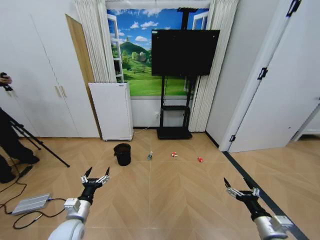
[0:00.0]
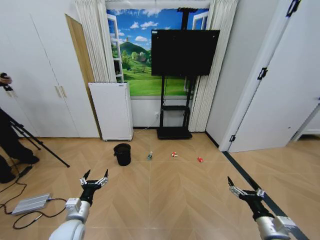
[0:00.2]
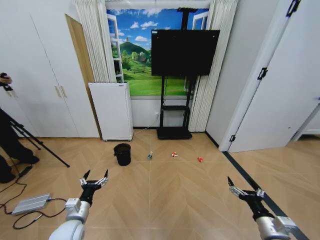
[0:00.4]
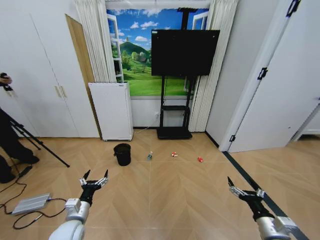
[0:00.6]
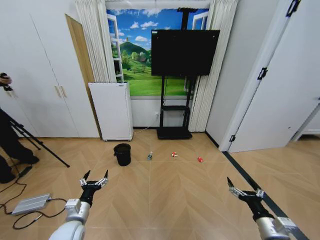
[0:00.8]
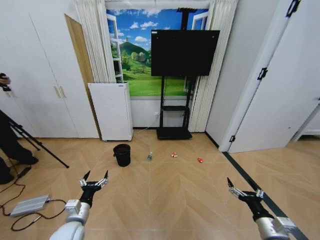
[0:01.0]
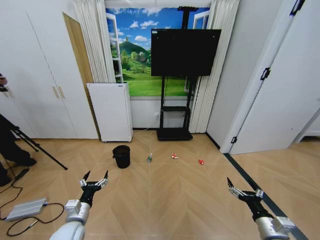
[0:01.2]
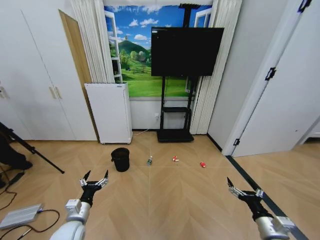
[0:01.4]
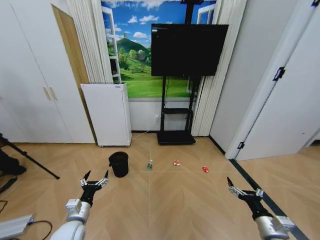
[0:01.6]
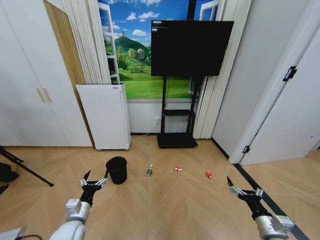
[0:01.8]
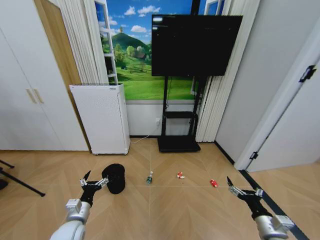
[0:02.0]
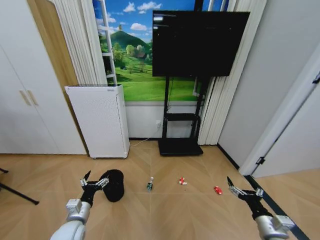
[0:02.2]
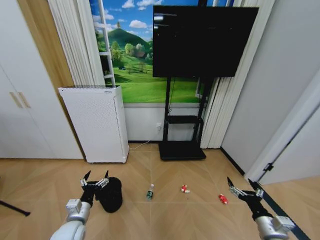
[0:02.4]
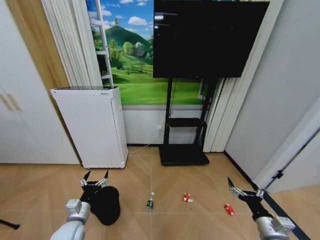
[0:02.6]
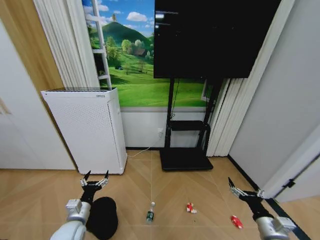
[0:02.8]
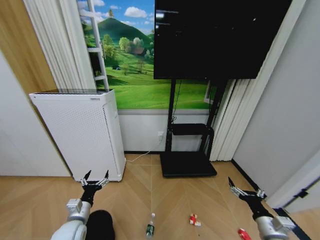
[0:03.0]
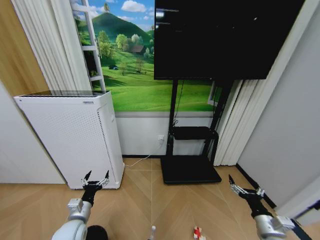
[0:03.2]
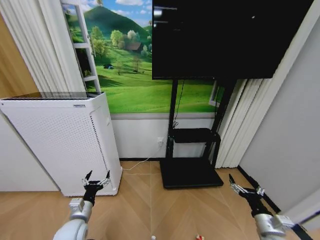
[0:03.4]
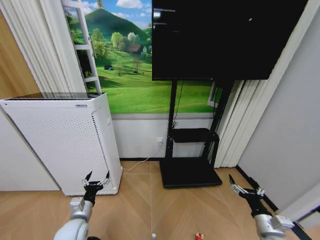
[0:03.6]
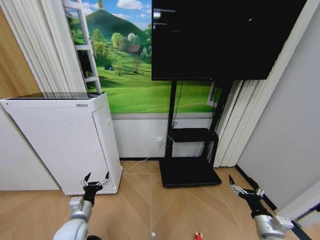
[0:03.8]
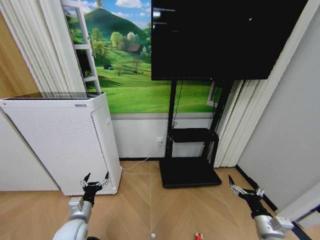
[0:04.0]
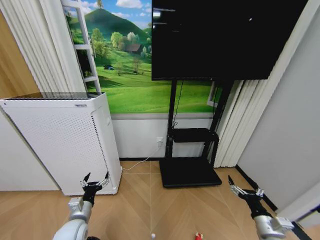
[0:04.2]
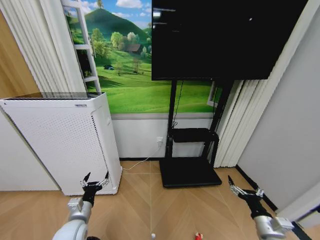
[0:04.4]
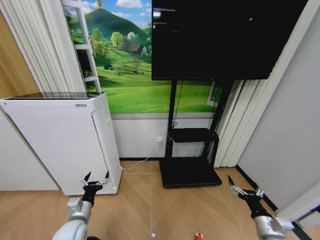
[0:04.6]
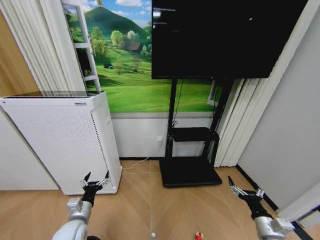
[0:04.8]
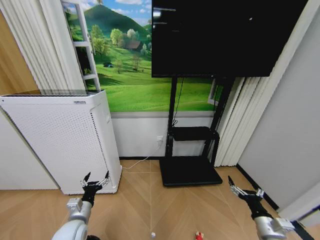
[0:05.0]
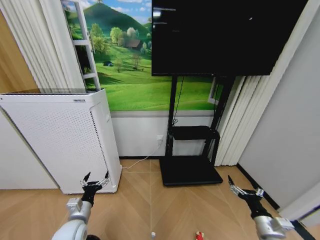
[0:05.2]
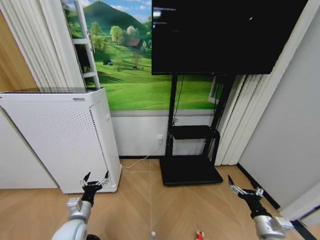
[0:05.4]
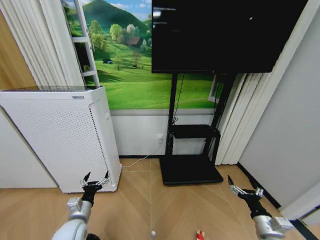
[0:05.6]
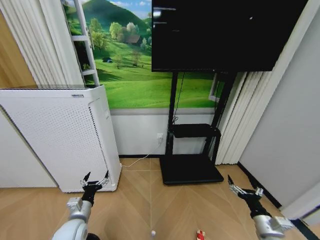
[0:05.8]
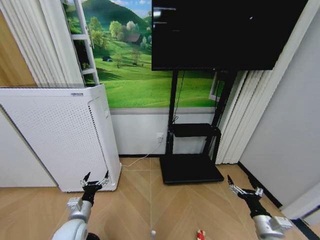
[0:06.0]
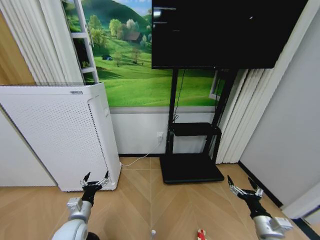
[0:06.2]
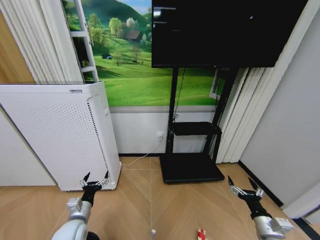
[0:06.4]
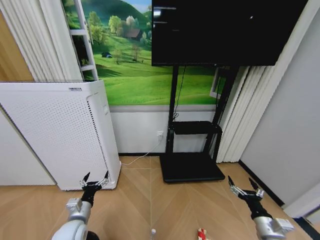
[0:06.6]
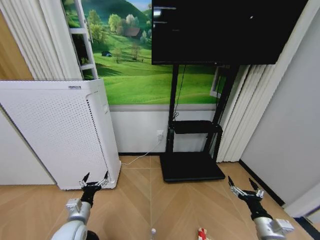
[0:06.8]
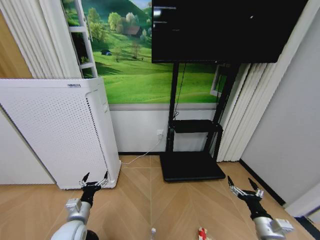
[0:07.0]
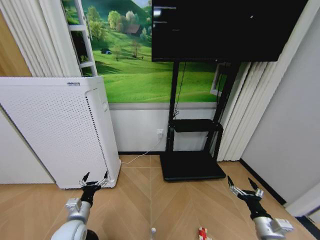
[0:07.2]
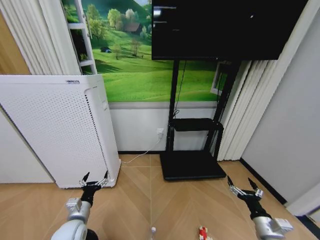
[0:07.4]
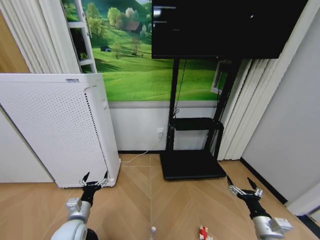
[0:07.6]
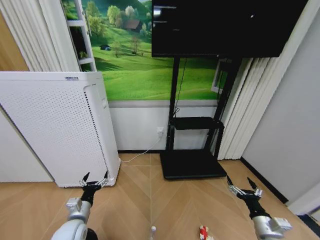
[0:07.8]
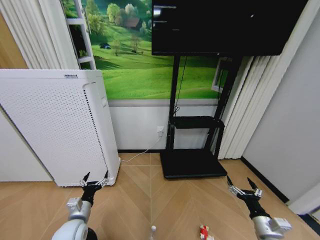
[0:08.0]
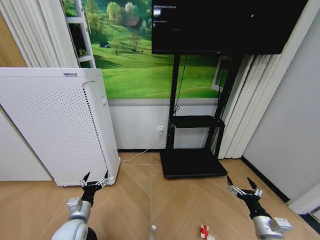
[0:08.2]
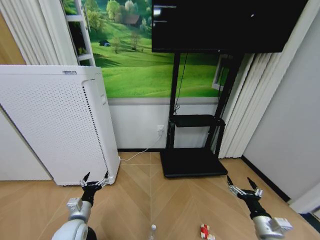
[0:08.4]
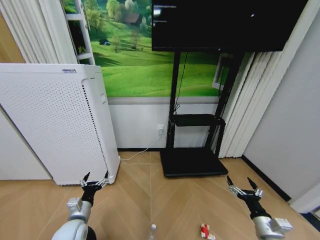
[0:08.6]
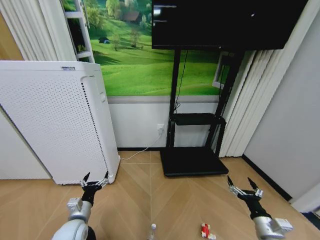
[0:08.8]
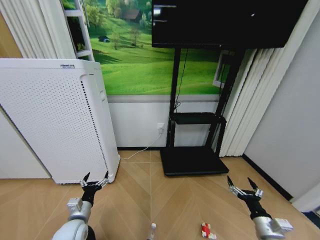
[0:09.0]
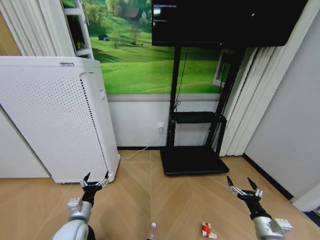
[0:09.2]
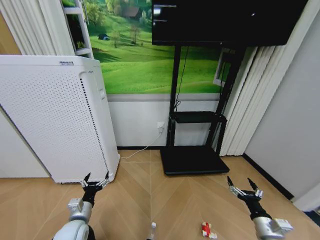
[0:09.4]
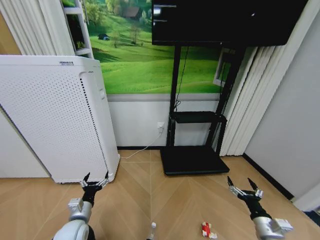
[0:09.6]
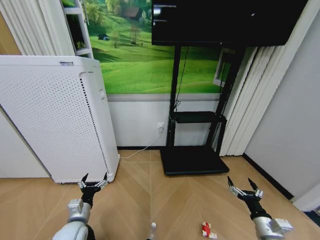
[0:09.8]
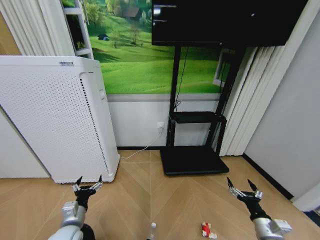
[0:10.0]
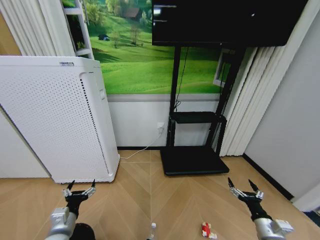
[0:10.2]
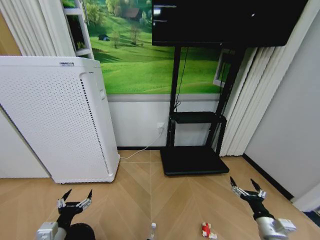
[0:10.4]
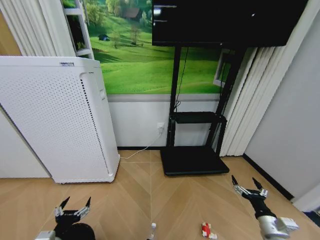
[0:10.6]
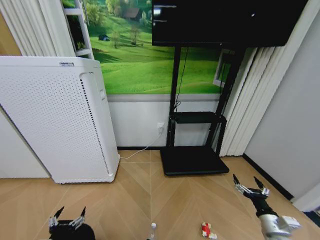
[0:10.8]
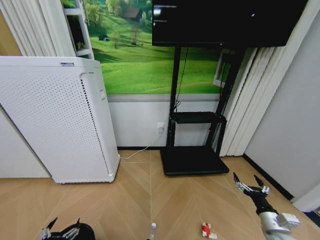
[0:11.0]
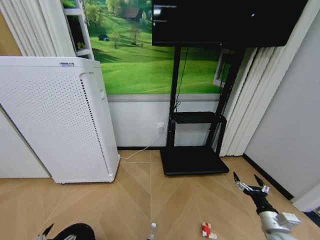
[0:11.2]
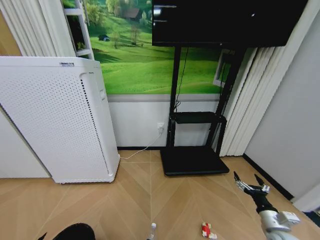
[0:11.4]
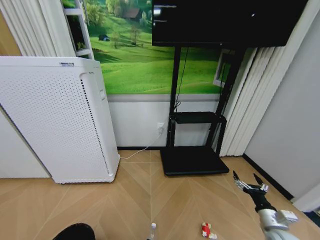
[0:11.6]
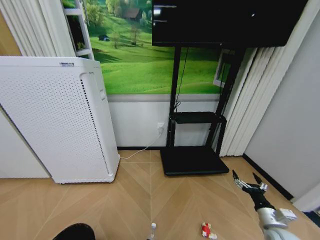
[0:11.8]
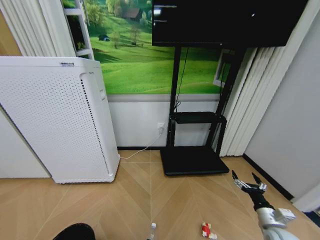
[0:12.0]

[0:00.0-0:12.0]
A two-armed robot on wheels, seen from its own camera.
Task of the whole recording: Pick up the trash bin and place the garbage on the floor into it.
0:04.4 to 0:09.0: Both grippers stay put.
0:09.0 to 0:10.4: The left gripper moves backward, roughly 10 cm.
0:10.4 to 0:12.0: The left gripper goes some 15 cm backward, to the left and downward.

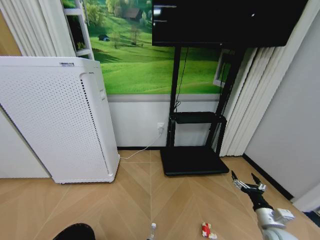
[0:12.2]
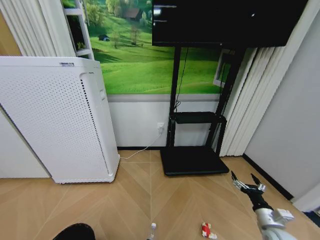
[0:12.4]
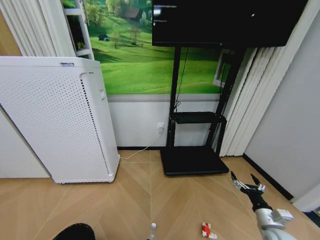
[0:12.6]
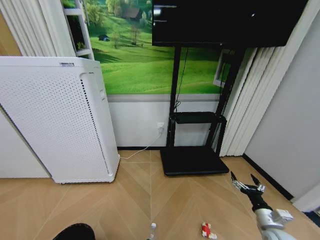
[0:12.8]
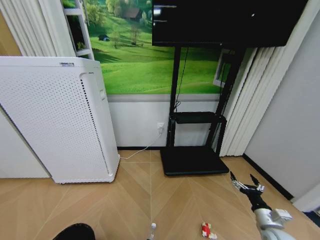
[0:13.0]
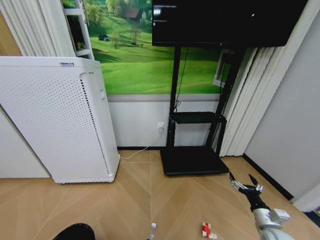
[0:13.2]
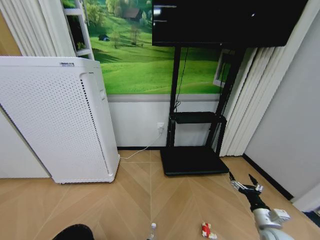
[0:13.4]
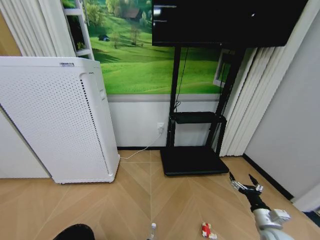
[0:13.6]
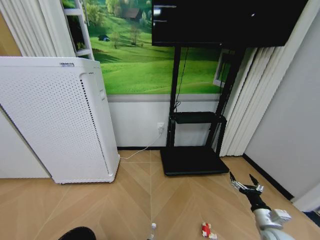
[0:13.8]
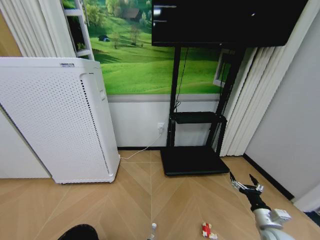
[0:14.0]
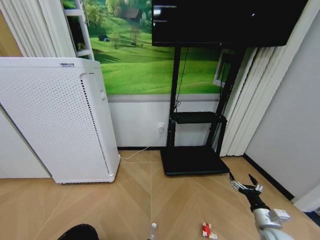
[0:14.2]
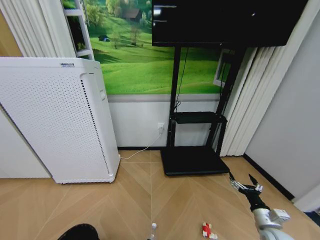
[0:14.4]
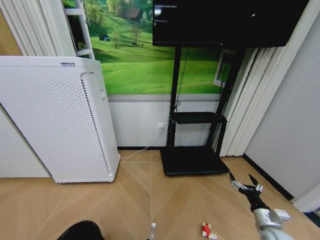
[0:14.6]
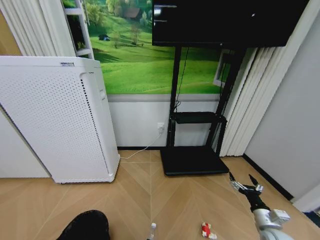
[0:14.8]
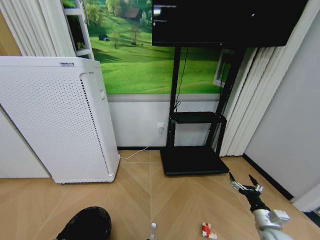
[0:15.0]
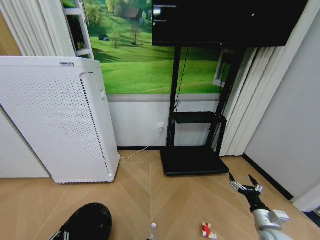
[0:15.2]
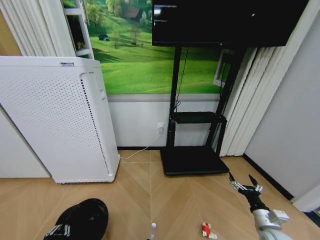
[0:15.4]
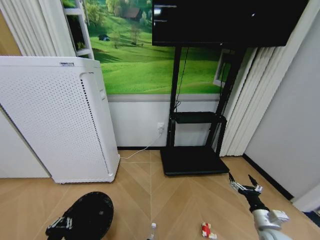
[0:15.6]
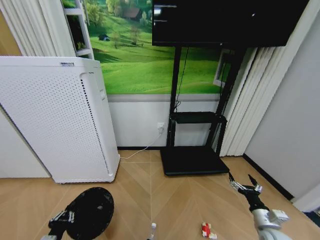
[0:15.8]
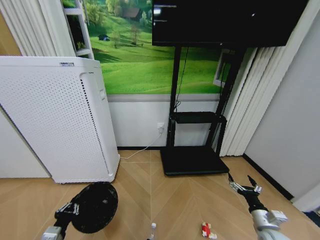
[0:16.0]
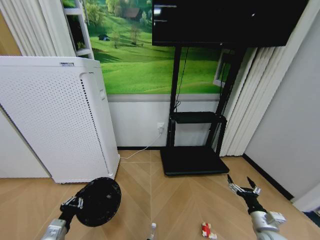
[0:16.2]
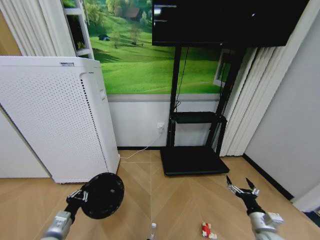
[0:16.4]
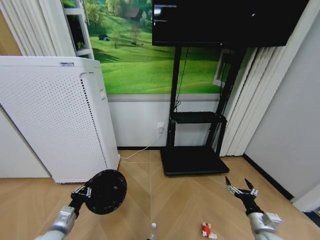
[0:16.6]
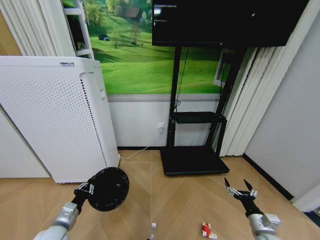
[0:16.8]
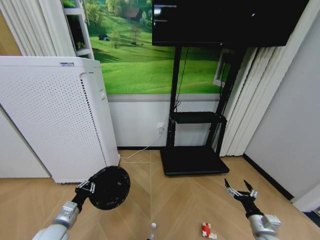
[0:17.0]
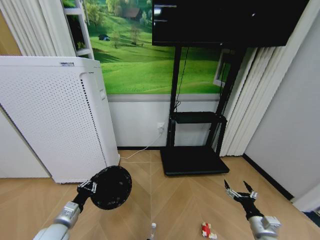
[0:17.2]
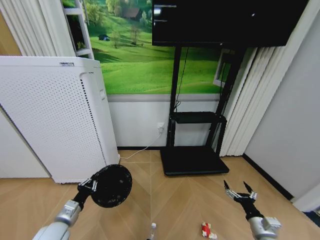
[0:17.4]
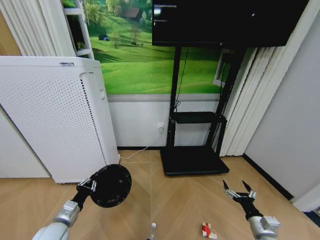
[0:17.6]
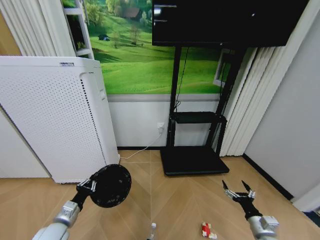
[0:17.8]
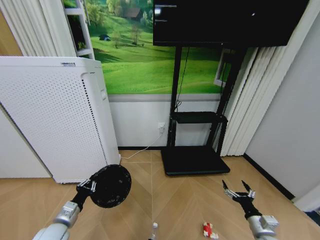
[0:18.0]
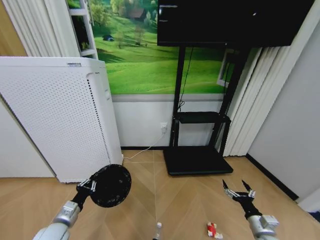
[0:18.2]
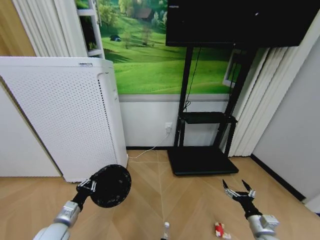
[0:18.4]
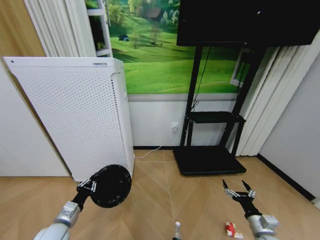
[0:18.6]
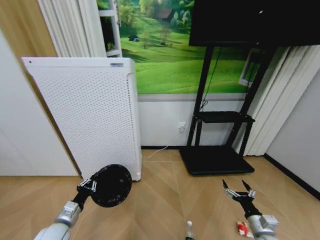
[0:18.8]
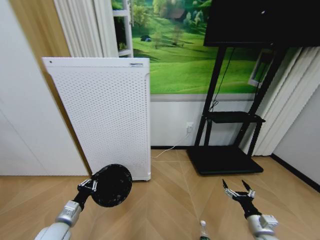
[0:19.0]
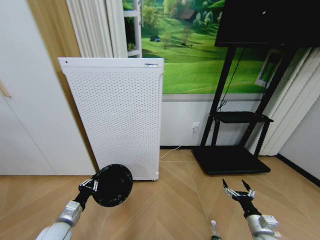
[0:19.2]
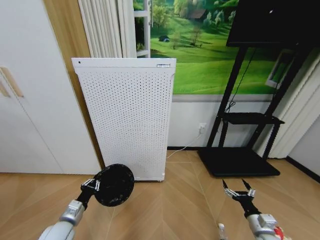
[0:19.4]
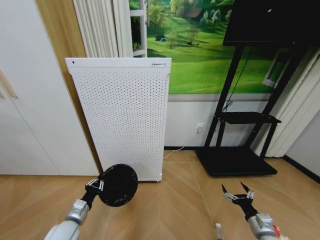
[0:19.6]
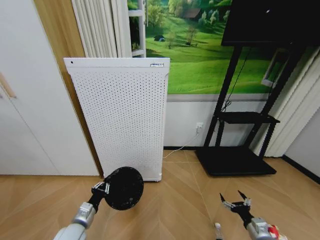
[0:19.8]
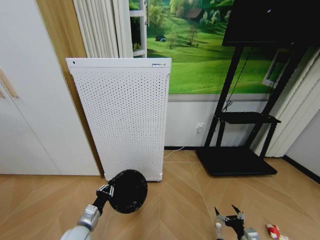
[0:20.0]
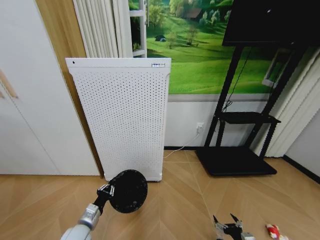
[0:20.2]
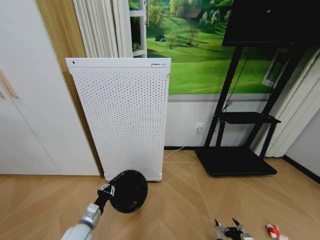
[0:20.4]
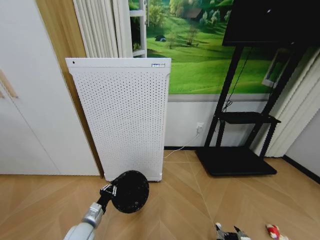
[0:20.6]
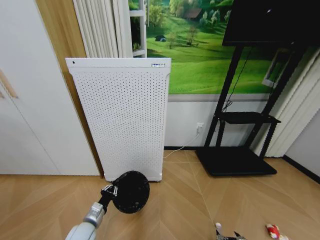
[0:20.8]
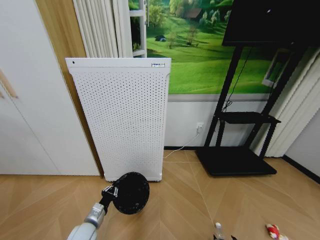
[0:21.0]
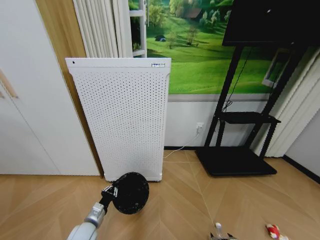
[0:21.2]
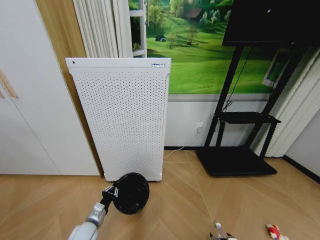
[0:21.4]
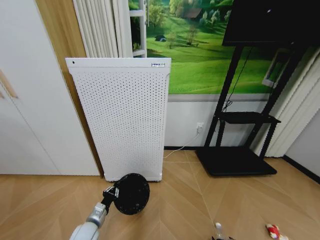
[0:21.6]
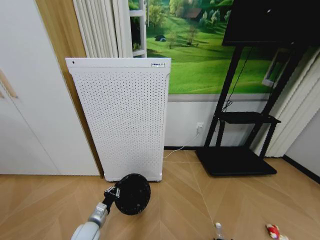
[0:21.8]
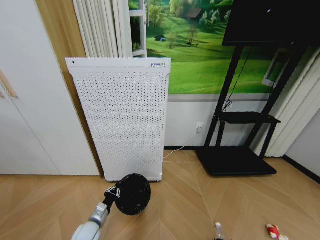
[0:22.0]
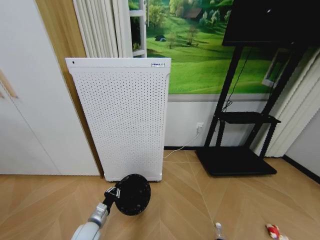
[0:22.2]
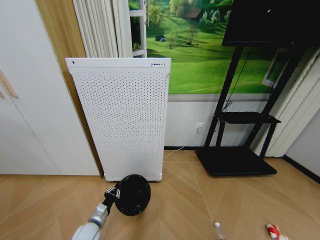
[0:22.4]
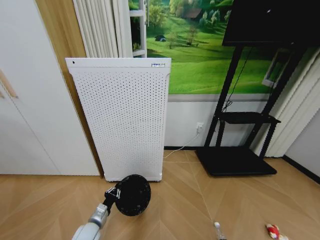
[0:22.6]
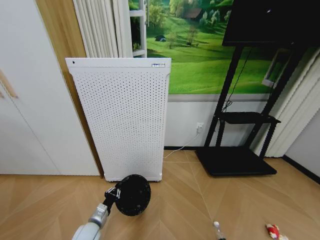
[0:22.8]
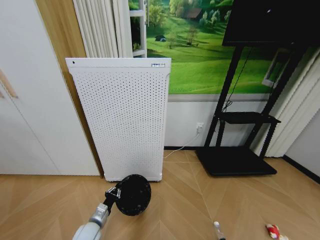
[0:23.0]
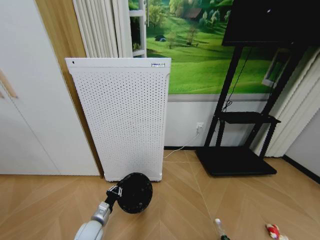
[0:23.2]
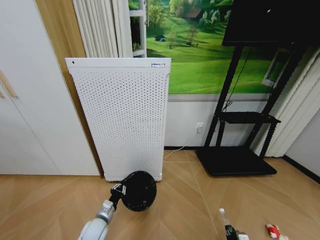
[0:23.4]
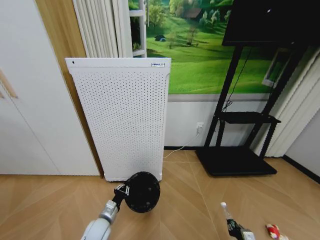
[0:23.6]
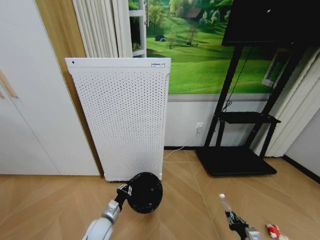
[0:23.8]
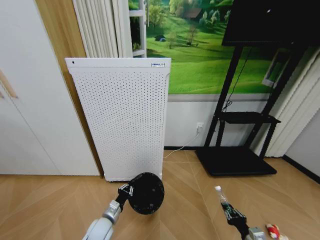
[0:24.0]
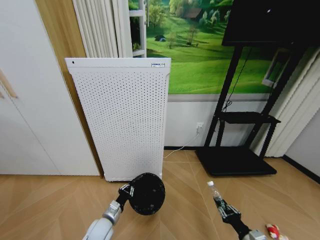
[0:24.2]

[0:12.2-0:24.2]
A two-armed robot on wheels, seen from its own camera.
Task of the whole recording: Pick up the trash bin and place the garbage on the floor into it.
0:13.8 to 0:15.2: The left gripper ends up about 5 cm from where it was, and closes.
0:15.2 to 0:16.6: The left gripper goes about 15 cm forward and upward.
0:16.6 to 0:18.2: The grippers stay close to where they were, moving slightly.
0:18.2 to 0:19.8: The left gripper heads to the right, covering some 5 cm.
0:19.8 to 0:21.2: The right gripper is displaced downward and to the left by roughly 15 cm, while the left gripper moves about 5 cm.
0:21.2 to 0:22.6: The right gripper closes its fingers.
0:22.6 to 0:24.2: The right gripper is displaced upward by roughly 20 cm, and closes, while the left gripper is displaced to the right by roughly 5 cm.
